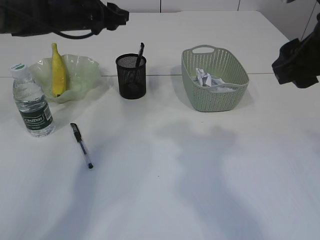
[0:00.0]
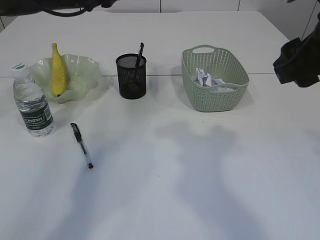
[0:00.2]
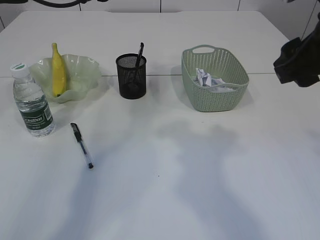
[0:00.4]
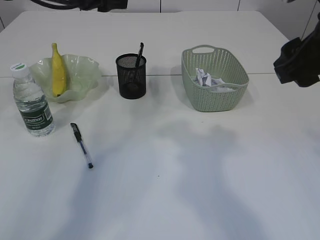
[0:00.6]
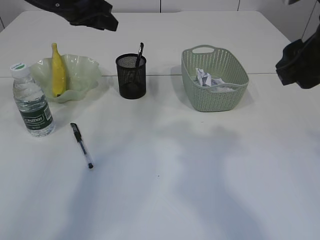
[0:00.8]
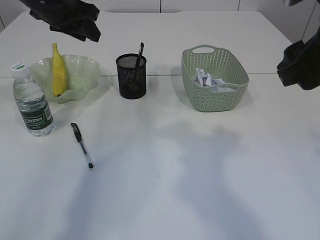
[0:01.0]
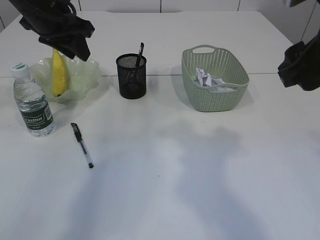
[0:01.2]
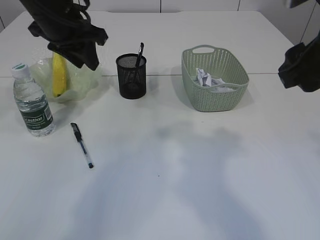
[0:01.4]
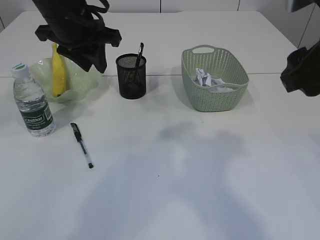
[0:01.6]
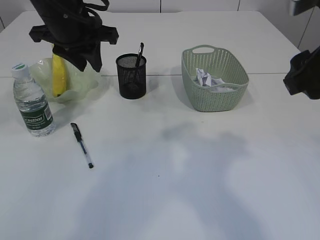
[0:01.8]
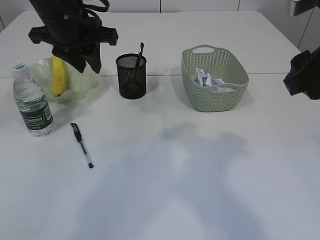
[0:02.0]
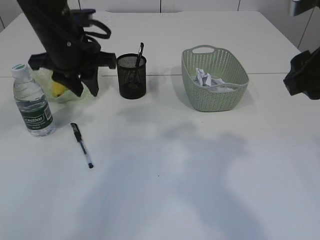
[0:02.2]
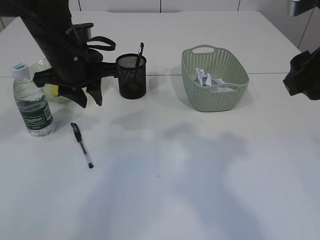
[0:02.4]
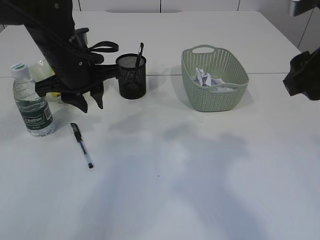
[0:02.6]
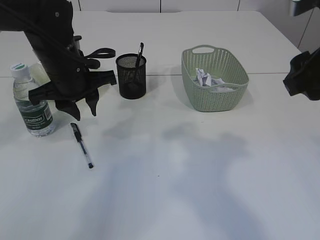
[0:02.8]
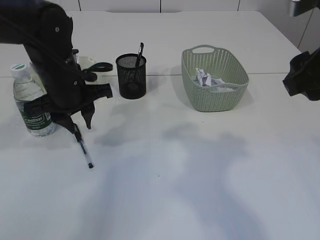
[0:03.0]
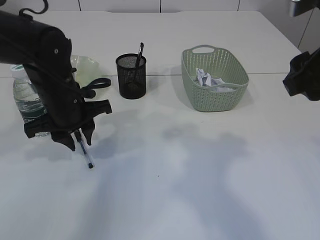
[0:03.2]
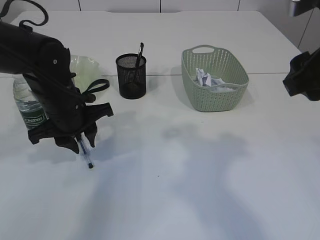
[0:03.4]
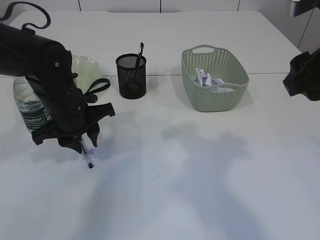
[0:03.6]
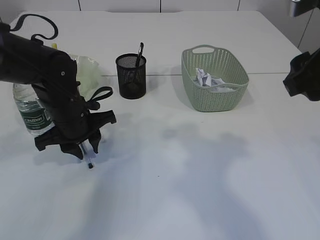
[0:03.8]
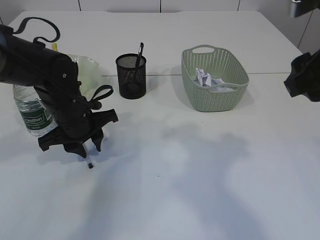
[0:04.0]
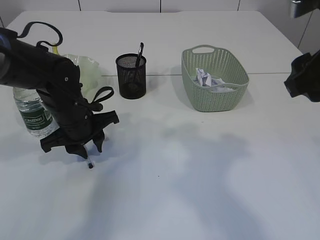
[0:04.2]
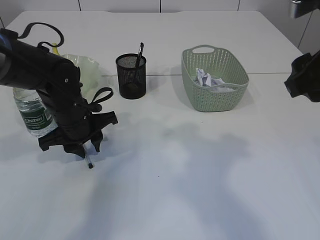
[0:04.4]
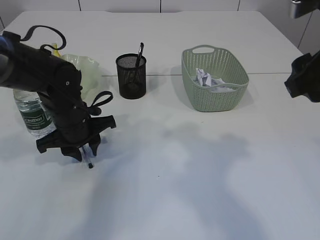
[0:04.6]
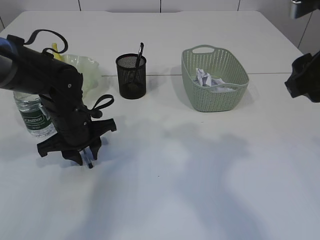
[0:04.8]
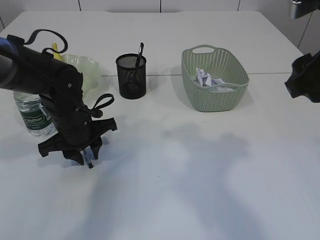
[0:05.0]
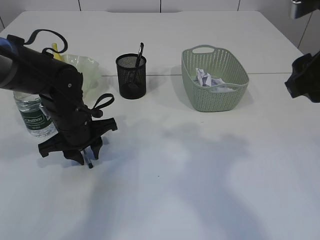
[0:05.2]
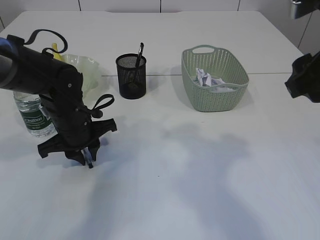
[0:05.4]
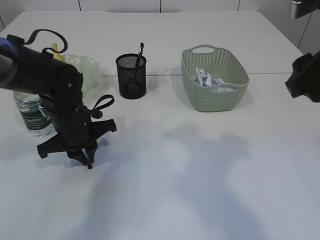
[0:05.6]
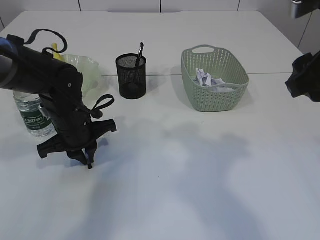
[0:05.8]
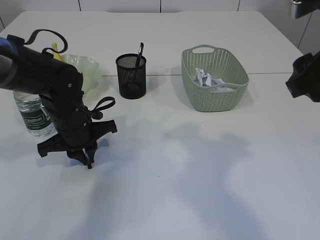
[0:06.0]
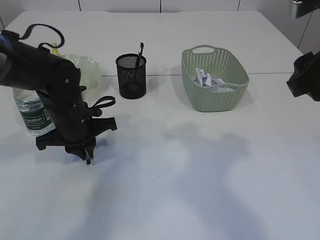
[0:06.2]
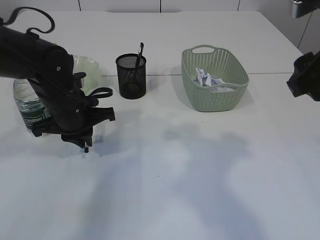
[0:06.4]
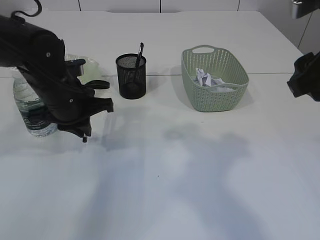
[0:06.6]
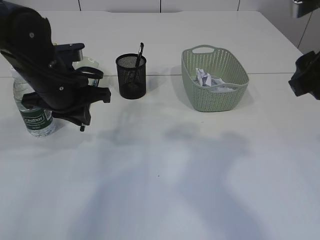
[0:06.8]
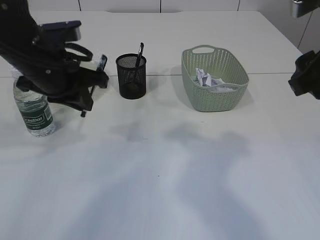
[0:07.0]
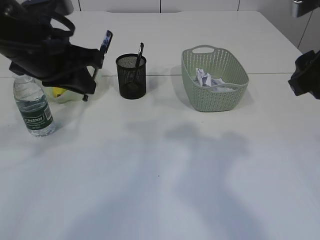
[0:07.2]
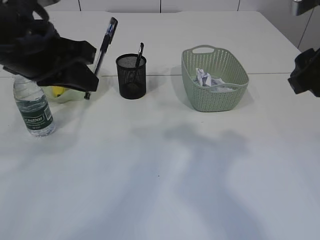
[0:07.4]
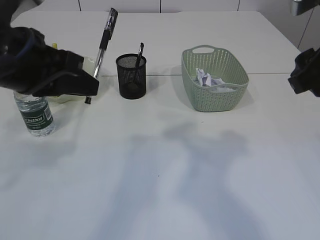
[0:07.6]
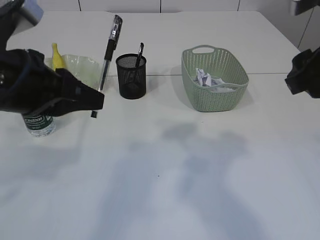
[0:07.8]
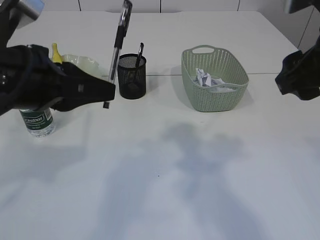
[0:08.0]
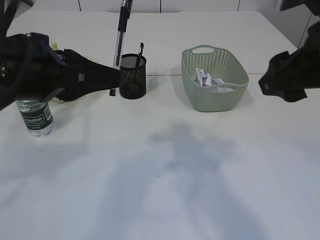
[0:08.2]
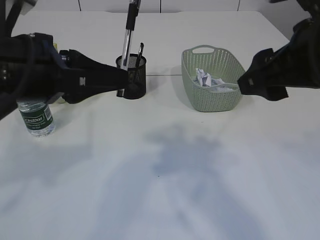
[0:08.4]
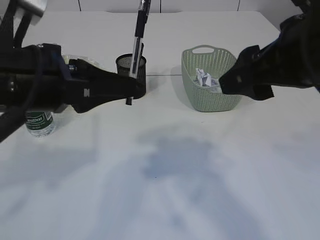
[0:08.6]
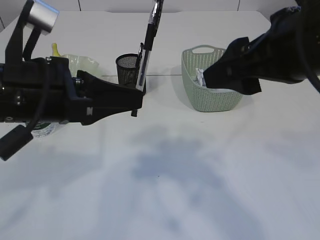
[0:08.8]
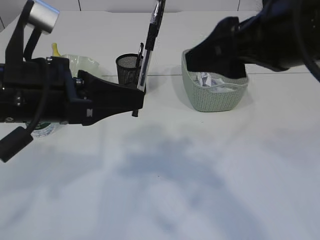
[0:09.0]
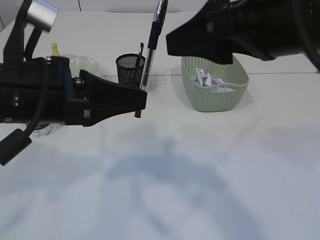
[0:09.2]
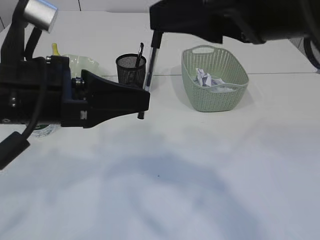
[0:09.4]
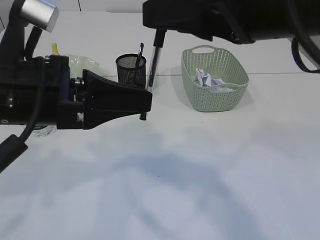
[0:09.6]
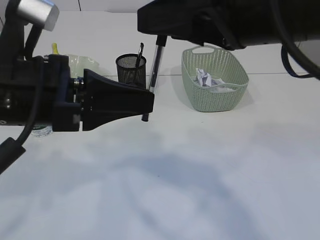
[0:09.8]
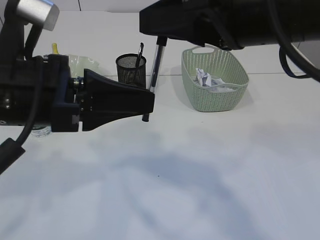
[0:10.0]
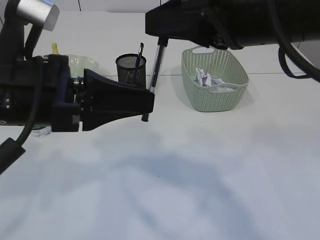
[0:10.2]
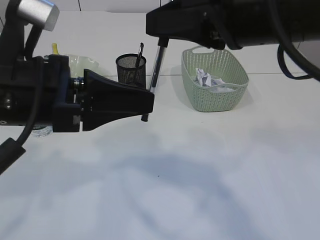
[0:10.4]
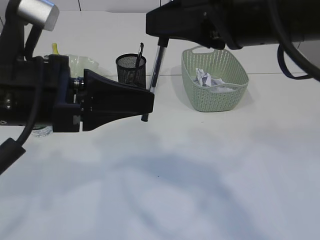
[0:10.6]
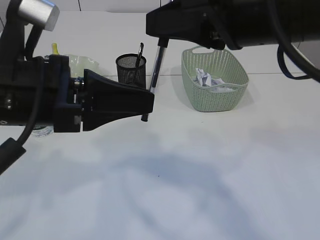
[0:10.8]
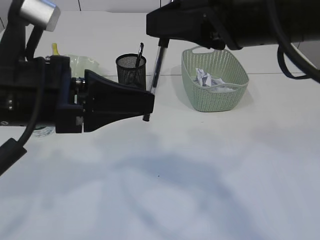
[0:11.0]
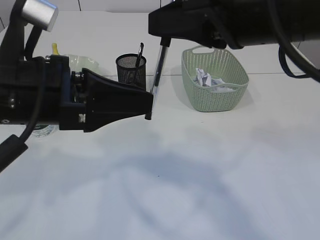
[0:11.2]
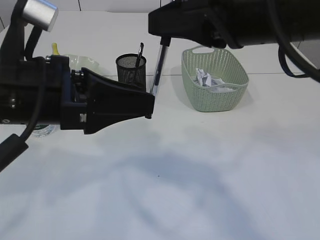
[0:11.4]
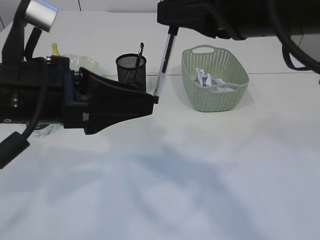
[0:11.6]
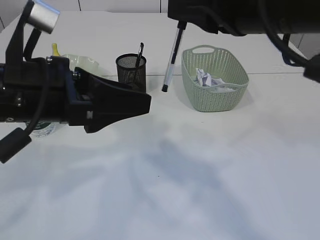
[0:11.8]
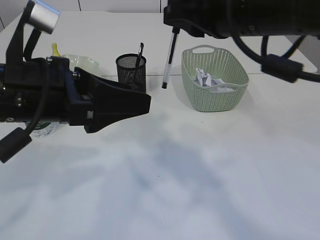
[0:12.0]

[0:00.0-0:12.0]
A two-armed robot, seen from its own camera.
Step, 0:00.0 to 0:06.8: Pick up the pen with left arm.
Step, 0:07.0 to 0:11.8: transfer the pen to the right arm.
0:00.0 to 0:01.6: The left gripper goes roughly 10 cm backward.
0:01.6 to 0:03.0: The left gripper shifts some 10 cm downward.
0:03.0 to 0:04.4: The left gripper moves downward, approximately 5 cm.
0:04.4 to 0:06.0: The left gripper closes up.
0:06.0 to 0:07.6: The left gripper goes about 20 cm upward and backward.
0:07.6 to 0:09.0: The right gripper heads to the left, covering roughly 5 cm.
0:09.0 to 0:10.4: The right gripper closes its fingers.
0:10.4 to 0:12.0: The right gripper goes about 5 cm forward. Meanwhile the left gripper opens.

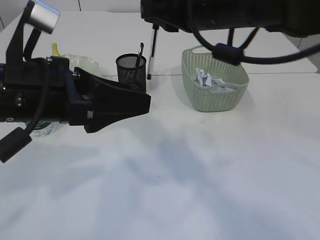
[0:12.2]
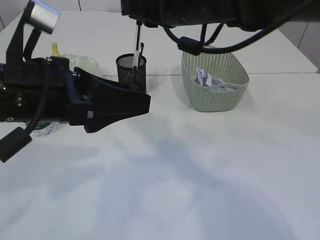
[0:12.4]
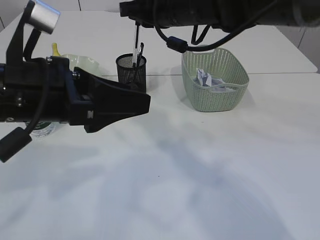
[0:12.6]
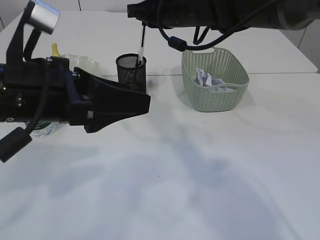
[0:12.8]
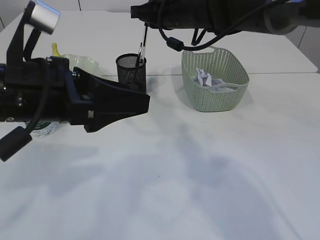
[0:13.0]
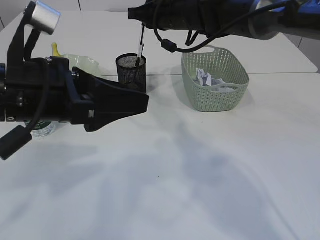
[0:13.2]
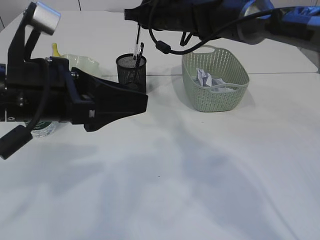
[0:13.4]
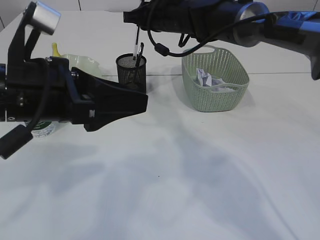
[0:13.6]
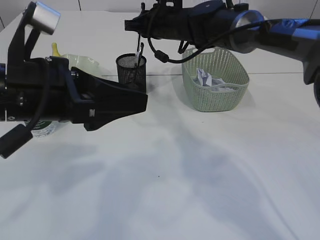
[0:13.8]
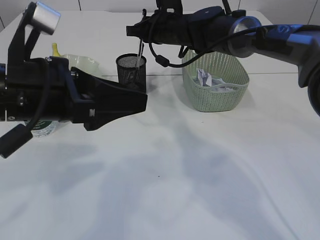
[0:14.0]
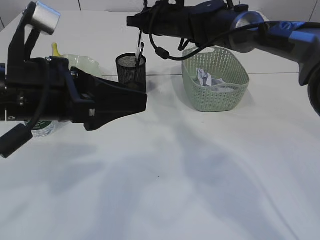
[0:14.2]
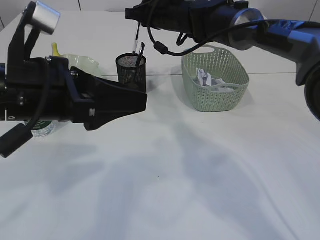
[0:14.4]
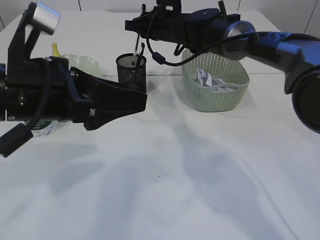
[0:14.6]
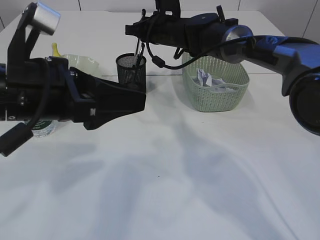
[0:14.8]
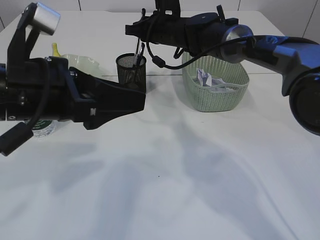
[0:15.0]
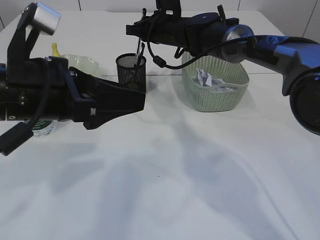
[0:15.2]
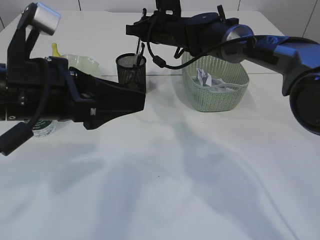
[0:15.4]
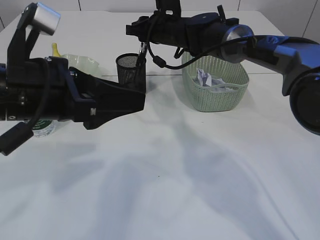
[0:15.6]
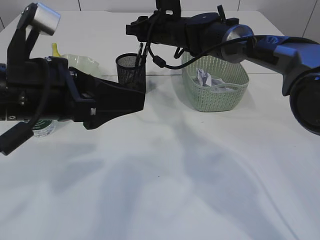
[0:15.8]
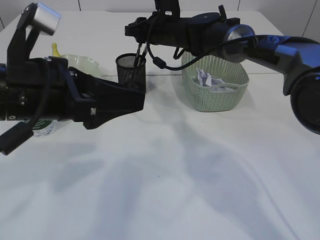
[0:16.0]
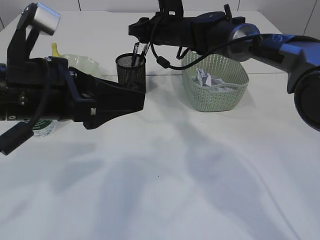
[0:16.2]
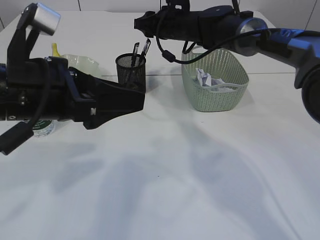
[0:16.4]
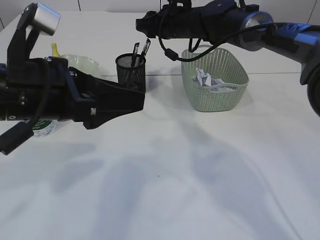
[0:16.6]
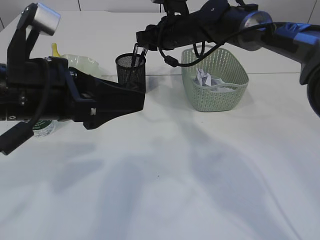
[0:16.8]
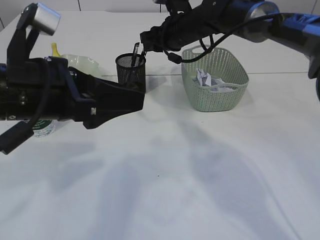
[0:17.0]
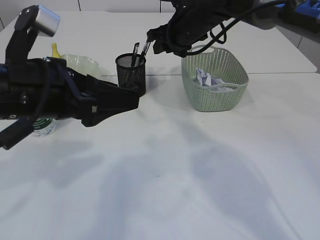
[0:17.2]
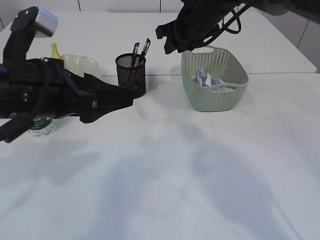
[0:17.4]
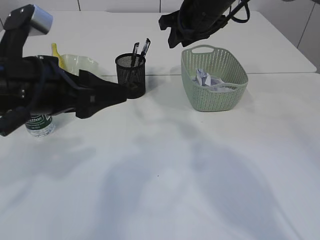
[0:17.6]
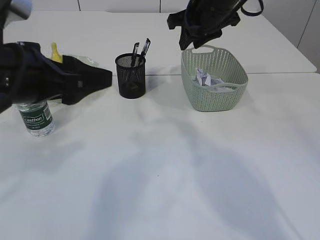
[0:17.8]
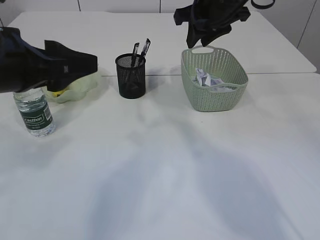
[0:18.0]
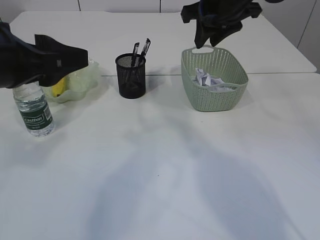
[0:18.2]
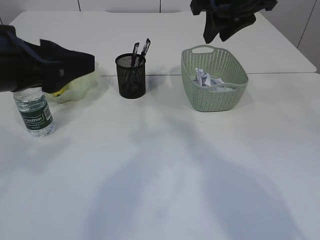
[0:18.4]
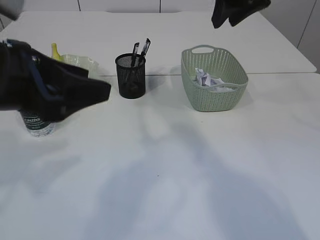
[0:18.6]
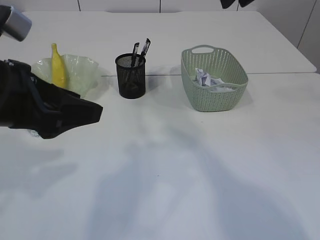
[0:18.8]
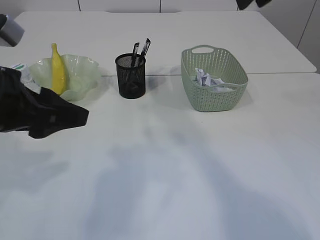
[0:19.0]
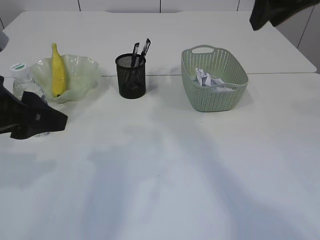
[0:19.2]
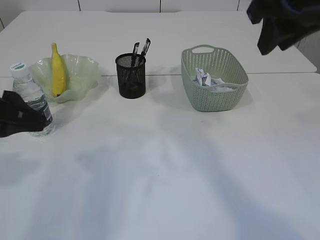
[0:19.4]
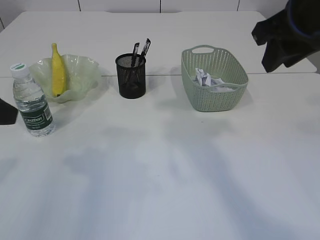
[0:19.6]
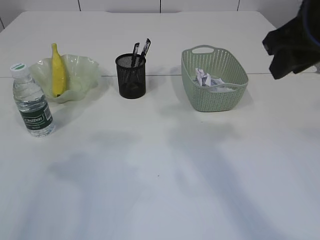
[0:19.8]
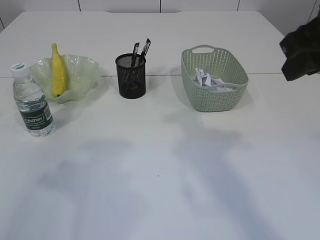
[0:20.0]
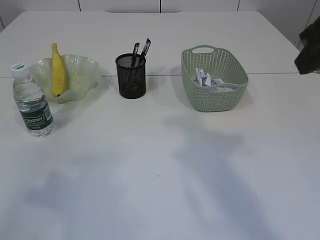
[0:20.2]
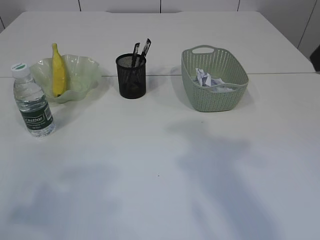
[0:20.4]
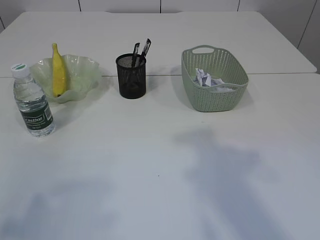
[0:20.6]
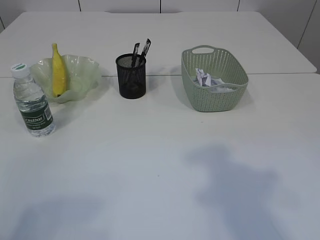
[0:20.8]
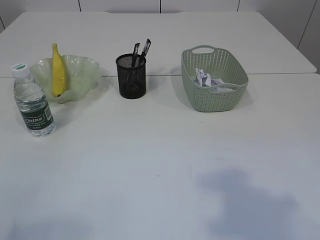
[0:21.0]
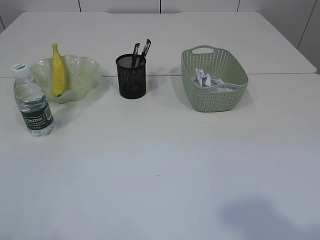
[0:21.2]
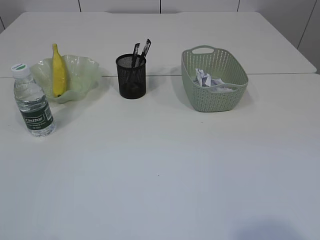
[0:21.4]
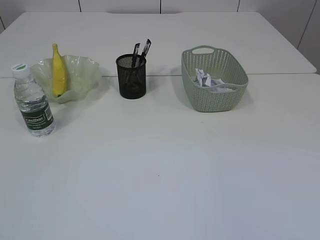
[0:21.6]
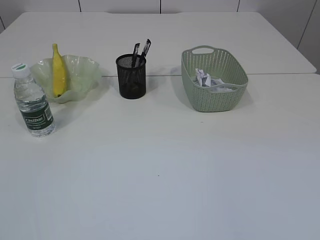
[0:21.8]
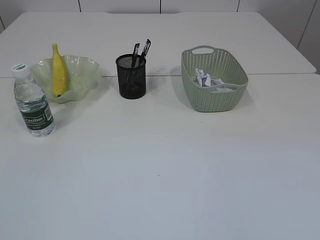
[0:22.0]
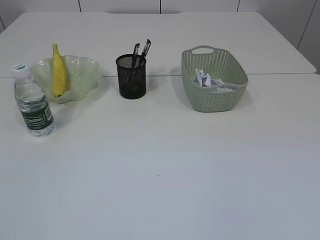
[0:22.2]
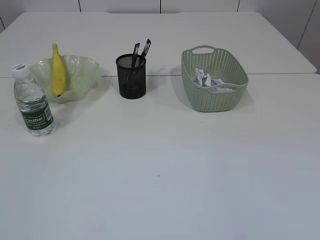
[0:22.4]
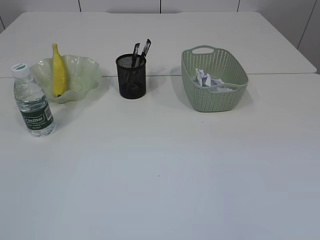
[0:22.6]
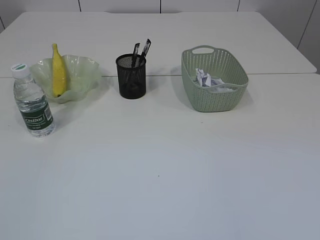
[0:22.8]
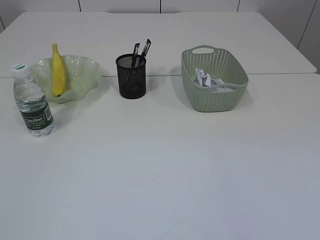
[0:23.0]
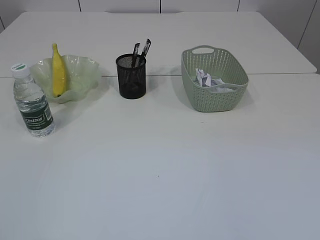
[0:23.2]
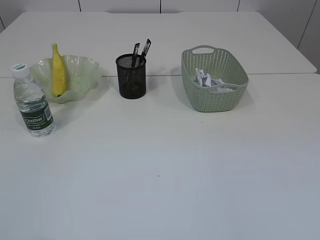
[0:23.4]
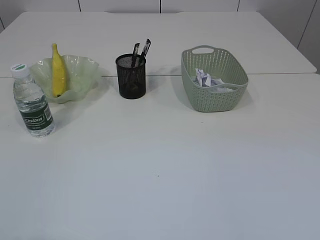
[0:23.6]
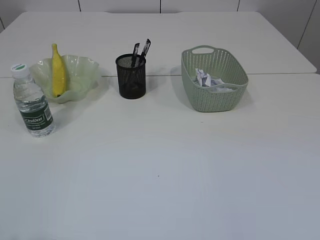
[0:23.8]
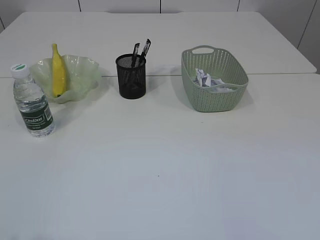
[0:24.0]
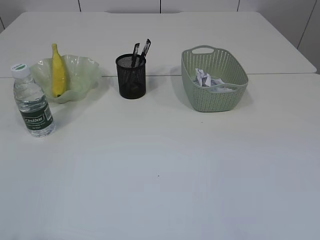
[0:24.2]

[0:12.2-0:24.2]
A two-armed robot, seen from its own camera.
Step, 0:12.2 to 0:17.4: Place the pen into the pen holder.
0:12.2 to 0:13.8: The right gripper travels forward and downward by some 20 cm.
0:13.8 to 0:15.2: The grippers make only small movements.
0:15.2 to 0:16.6: The right gripper opens its fingers.
0:16.6 to 0:18.2: The right gripper shifts roughly 15 cm backward, upward and to the right; the left gripper moves about 5 cm.
0:18.2 to 0:19.8: The left gripper heads to the left, covering about 10 cm. Meanwhile the right gripper is displaced backward and to the right by about 15 cm.
0:19.8 to 0:21.2: The right gripper goes roughly 25 cm backward.
